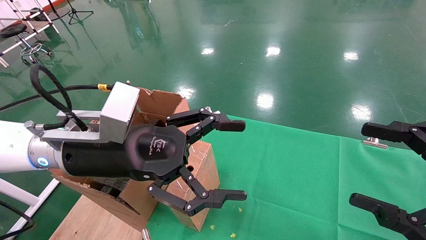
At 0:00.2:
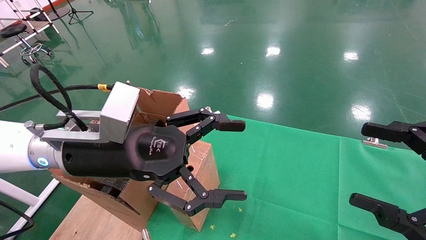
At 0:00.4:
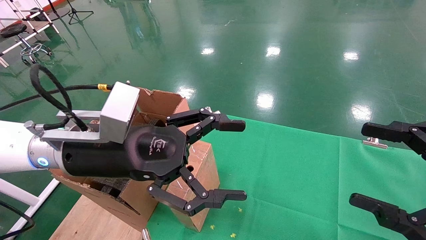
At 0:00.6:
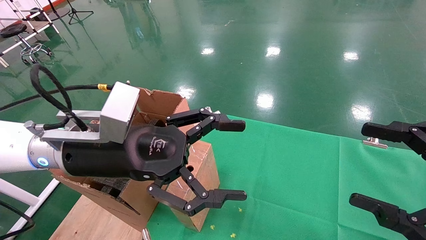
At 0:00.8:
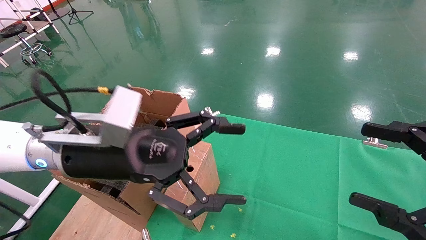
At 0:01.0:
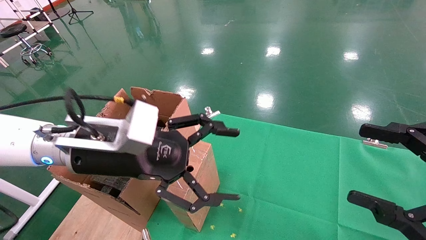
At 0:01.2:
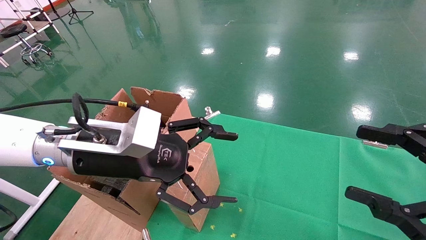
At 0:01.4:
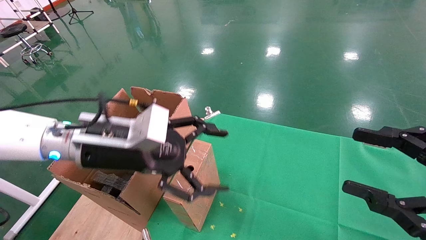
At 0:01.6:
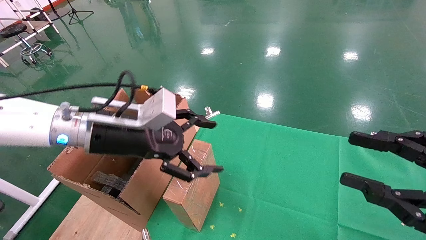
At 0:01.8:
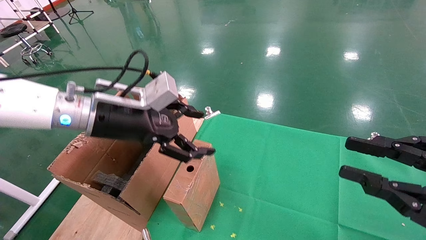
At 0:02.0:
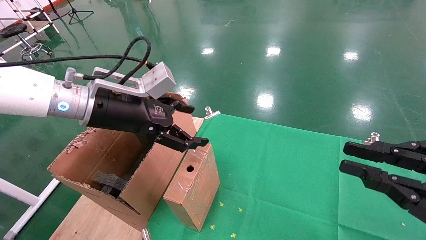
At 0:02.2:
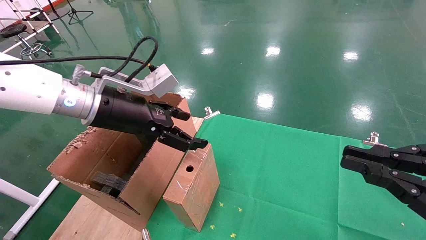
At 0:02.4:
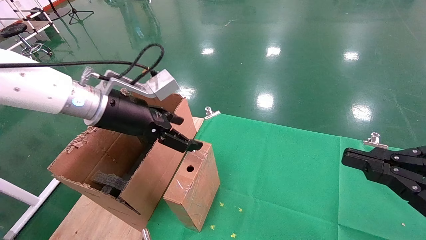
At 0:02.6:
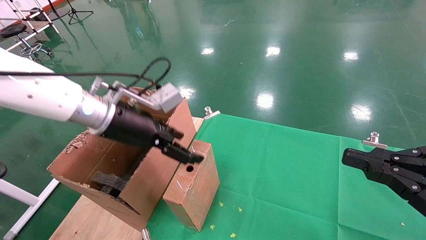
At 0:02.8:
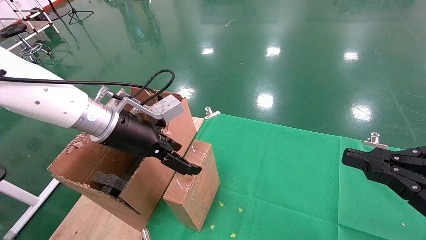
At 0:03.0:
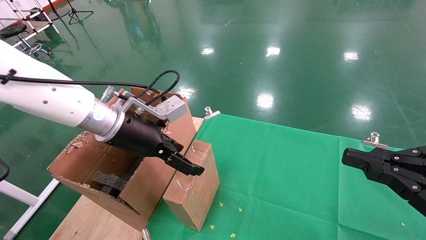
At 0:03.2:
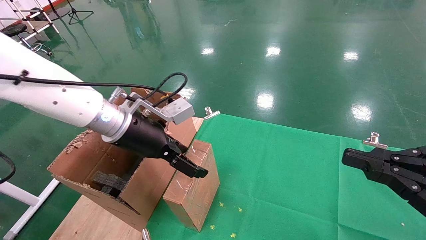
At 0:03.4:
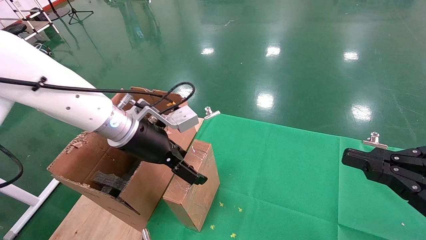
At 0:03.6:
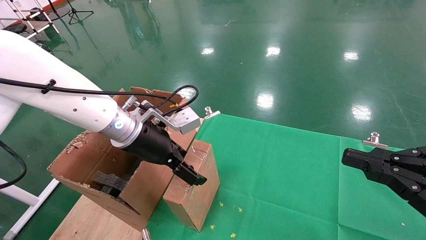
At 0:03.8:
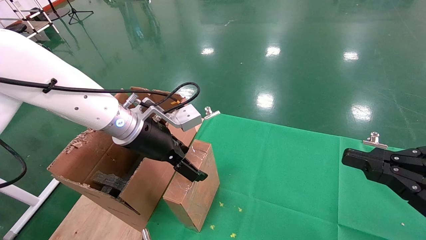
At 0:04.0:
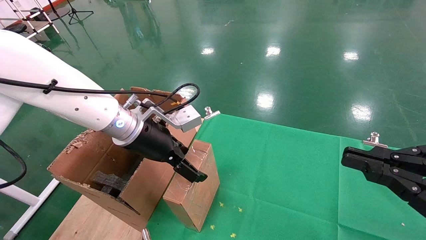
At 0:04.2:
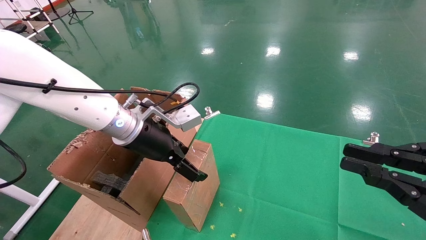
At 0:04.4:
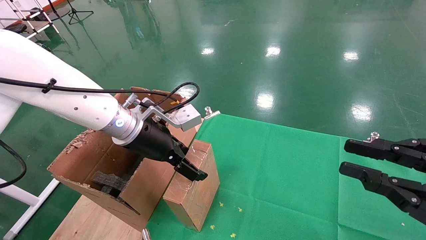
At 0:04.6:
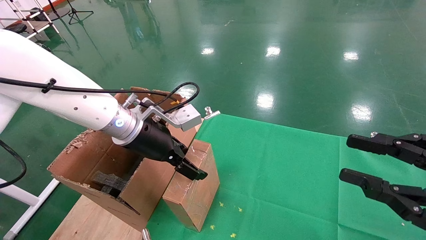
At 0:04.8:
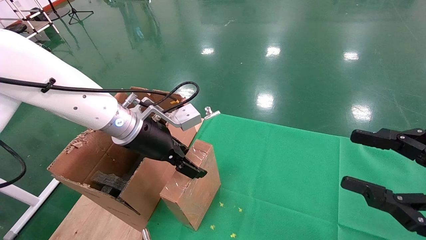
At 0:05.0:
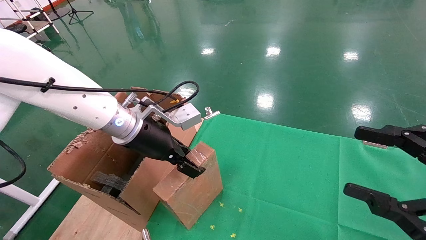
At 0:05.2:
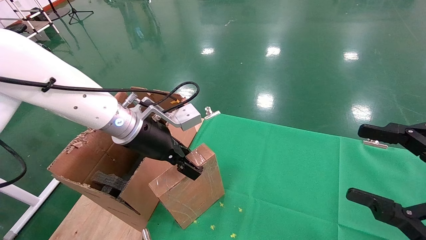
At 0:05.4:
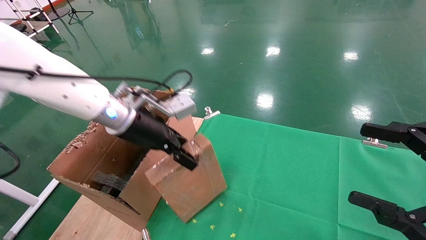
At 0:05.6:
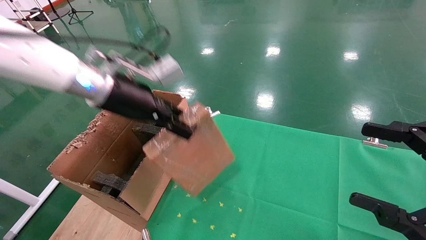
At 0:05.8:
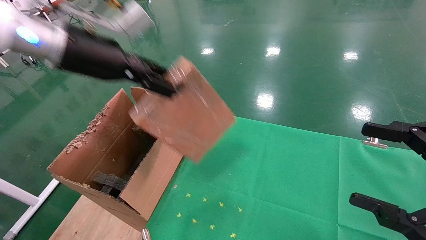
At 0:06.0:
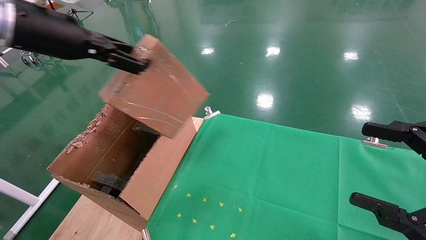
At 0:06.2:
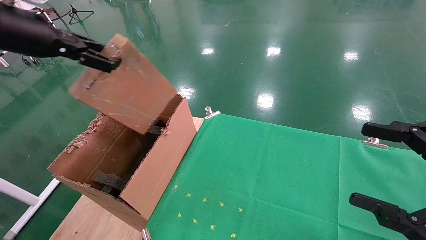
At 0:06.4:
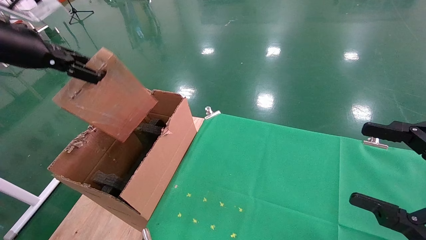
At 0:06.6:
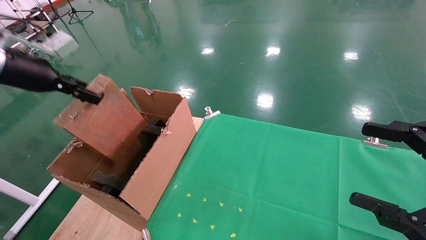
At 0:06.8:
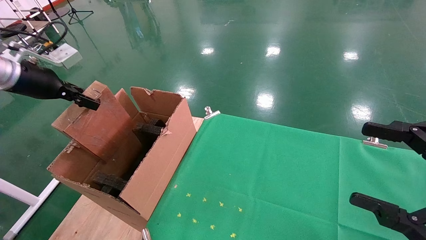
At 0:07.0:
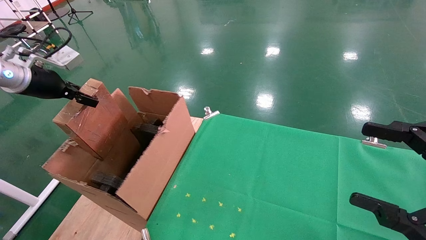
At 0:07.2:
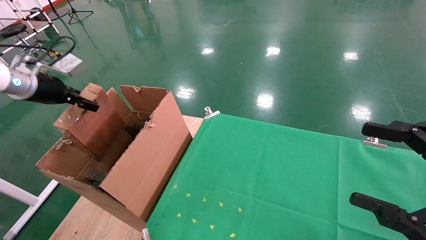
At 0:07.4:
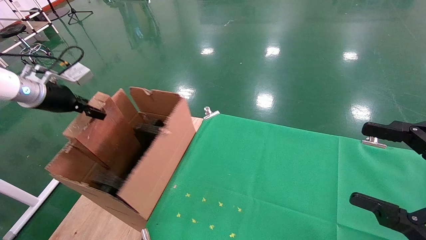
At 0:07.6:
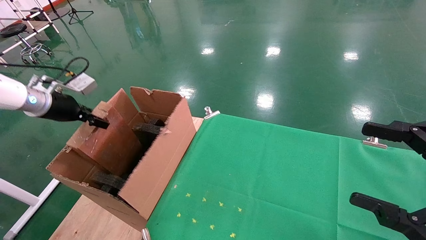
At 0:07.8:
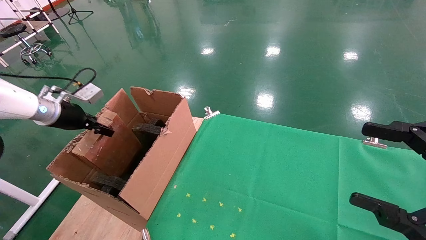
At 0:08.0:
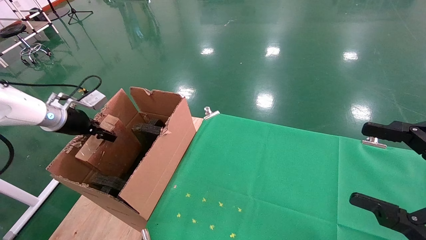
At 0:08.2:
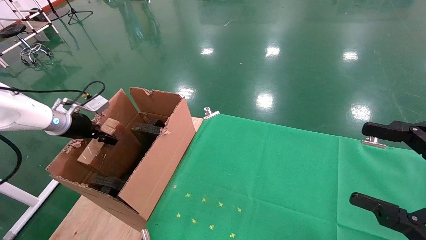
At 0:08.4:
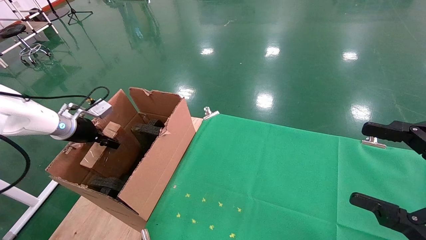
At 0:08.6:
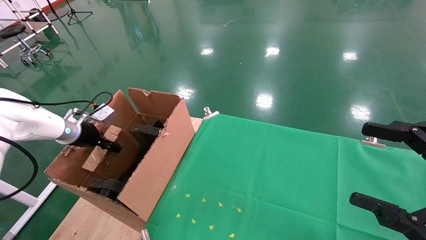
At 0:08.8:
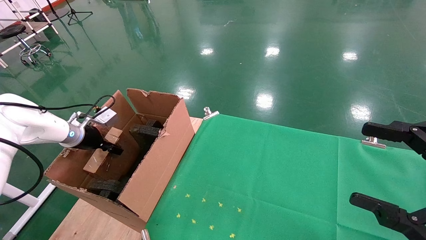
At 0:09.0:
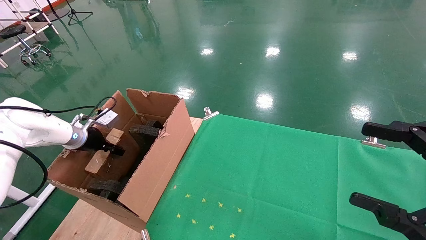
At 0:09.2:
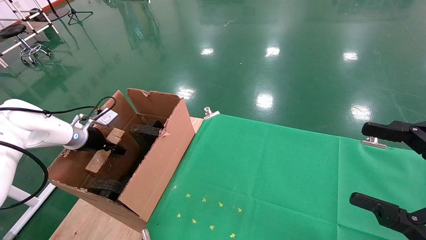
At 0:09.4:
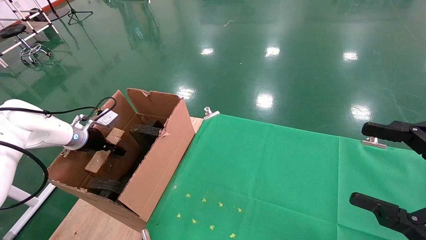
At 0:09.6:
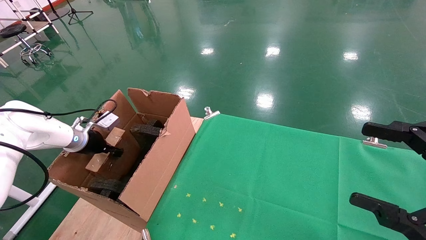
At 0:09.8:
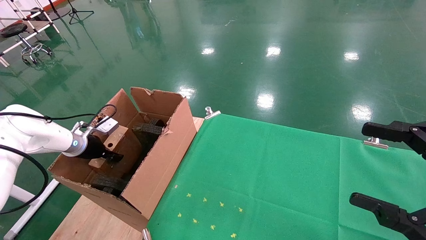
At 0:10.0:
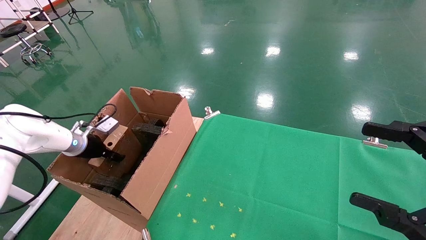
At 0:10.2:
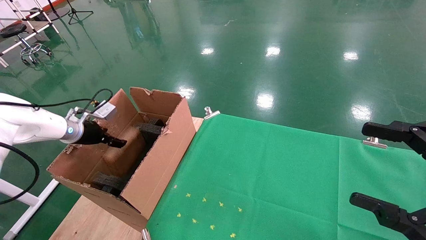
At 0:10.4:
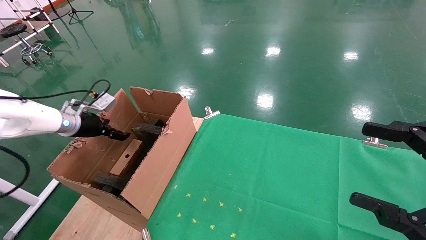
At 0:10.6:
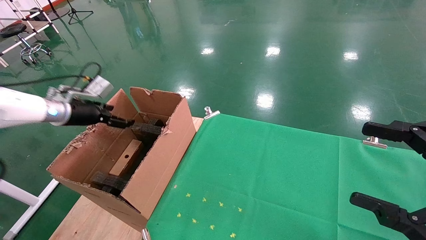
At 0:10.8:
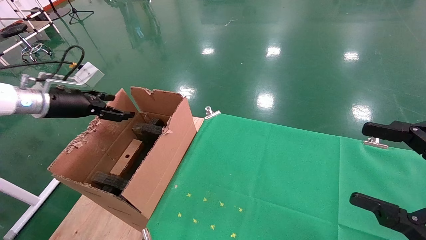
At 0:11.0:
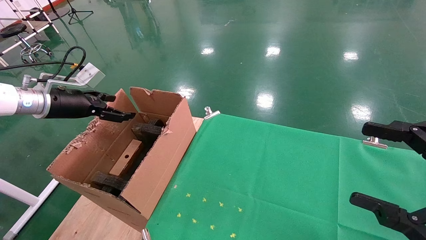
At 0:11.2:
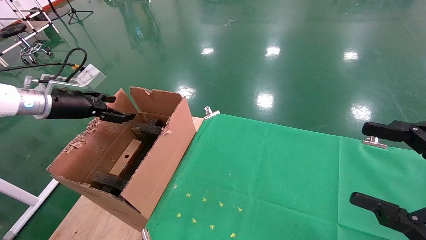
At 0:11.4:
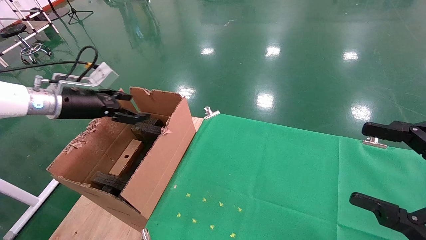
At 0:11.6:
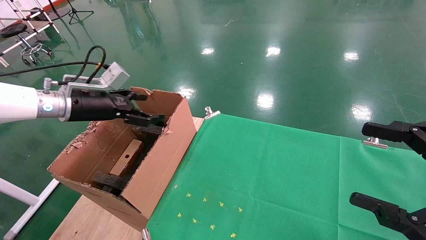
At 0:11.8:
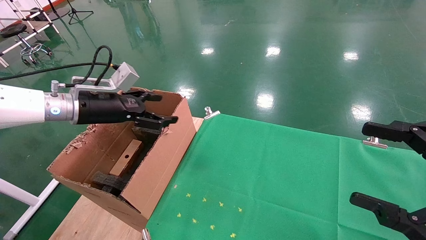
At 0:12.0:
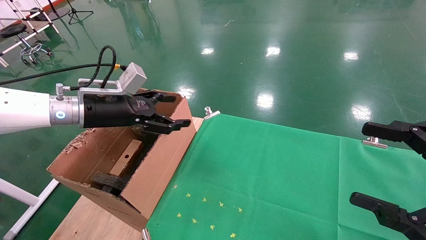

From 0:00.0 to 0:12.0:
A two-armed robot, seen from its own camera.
Task of the whole recording: using a robotic arm to pick up a cardboard box and palace it the carton.
Step, from 0:01.2 to 0:05.0: Pick up the mouse and the power cord paper box.
Step, from 0:05.2 to 0:10.8: Place the mouse and the power cord paper box into the container.
From 0:00.0 to 0:01.6: The left gripper moves forward, some 5 cm. Meanwhile the right gripper closes up.
From 0:01.6 to 0:03.0: The right gripper closes up.
From 0:03.0 to 0:04.4: The grippers stay close to where they were, moving slightly.
From 0:04.4 to 0:06.0: The right gripper opens up, while the left gripper goes some 20 cm upward and to the left, and closes up.
From 0:06.0 to 0:07.6: The left gripper heads downward, to the left and forward, covering approximately 25 cm.
From 0:07.6 to 0:09.0: The left gripper heads downward, covering about 15 cm.
From 0:09.0 to 0:10.4: The left gripper travels upward by some 5 cm, and opens its fingers.
From 0:10.4 to 0:12.0: The left gripper goes roughly 15 cm to the right, backward and upward.

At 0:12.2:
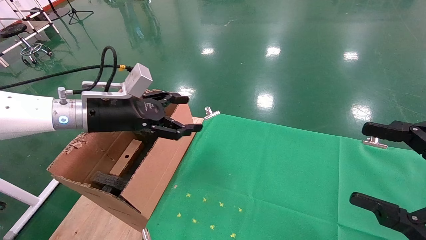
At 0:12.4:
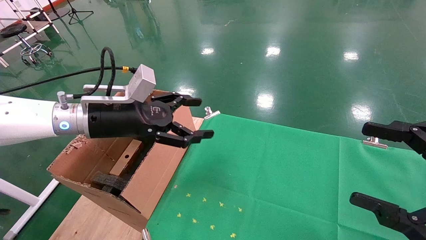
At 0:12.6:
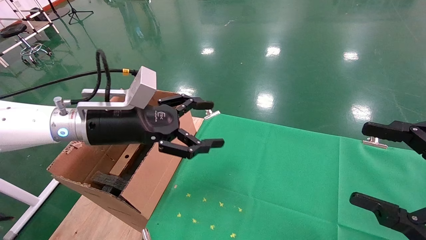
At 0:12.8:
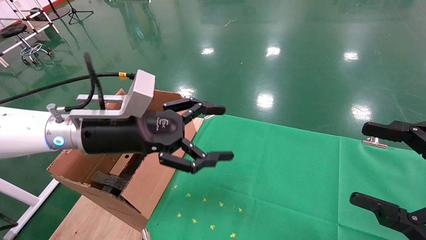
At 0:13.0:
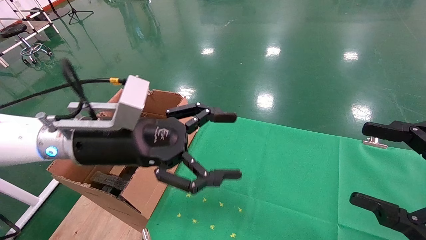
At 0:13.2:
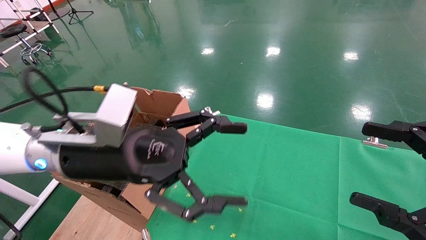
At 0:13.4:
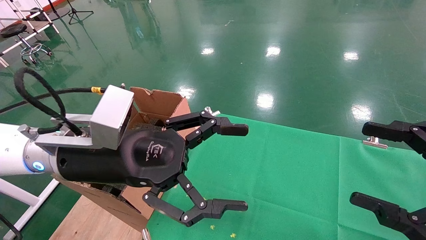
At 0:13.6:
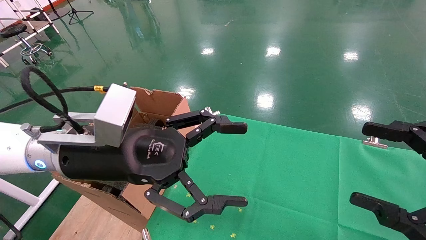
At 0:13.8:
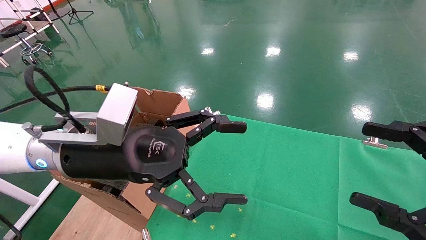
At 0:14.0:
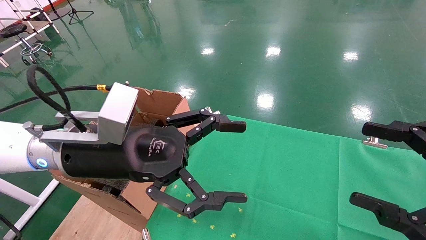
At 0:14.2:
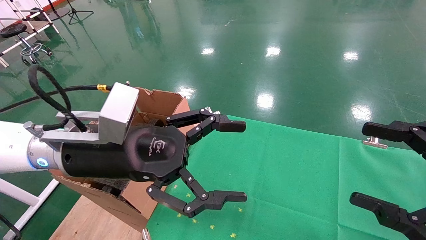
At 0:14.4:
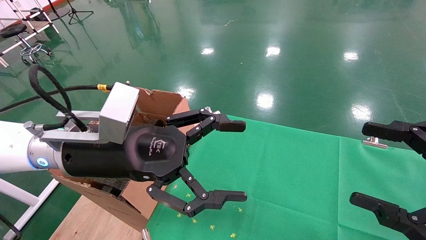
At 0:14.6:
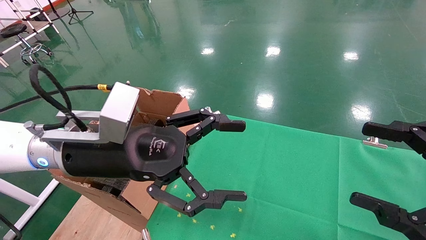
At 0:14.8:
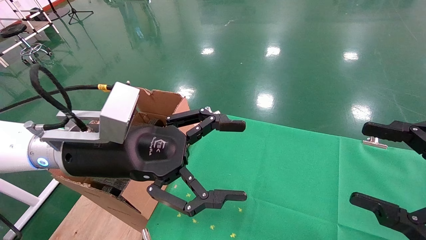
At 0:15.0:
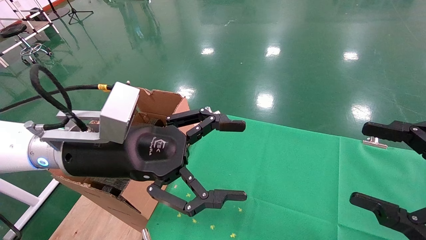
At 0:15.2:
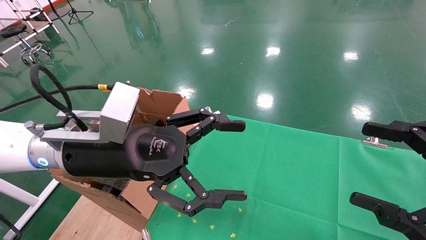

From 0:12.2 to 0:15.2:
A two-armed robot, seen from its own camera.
Task of the whole recording: using a robotic arm to pick up a cardboard box and palace it the carton.
From 0:12.2 to 0:13.8: The left gripper moves backward and to the right, approximately 15 cm.
From 0:13.8 to 0:15.2: Both grippers stay about where they are.
